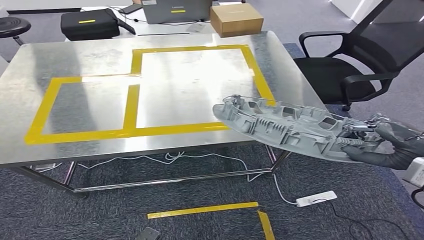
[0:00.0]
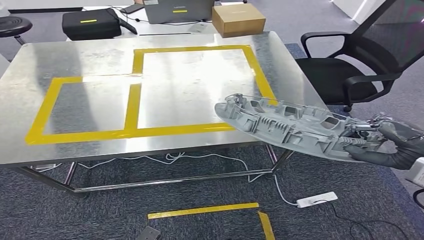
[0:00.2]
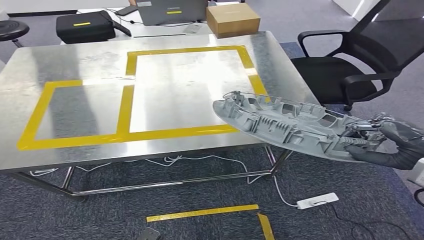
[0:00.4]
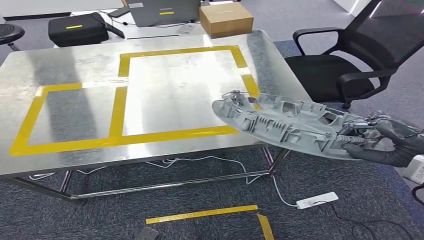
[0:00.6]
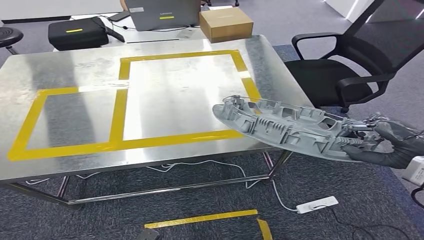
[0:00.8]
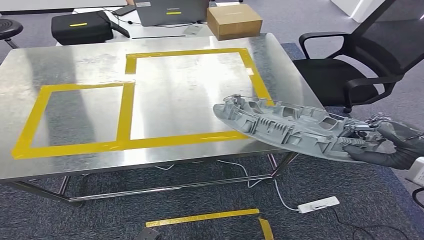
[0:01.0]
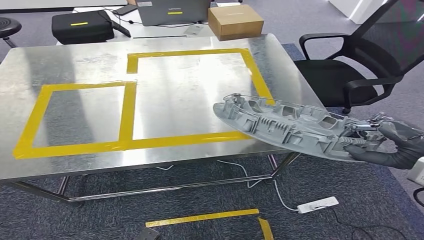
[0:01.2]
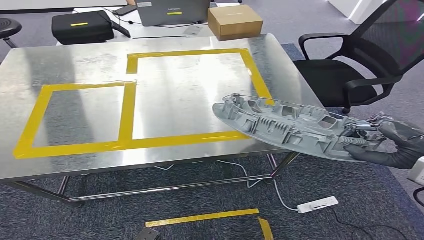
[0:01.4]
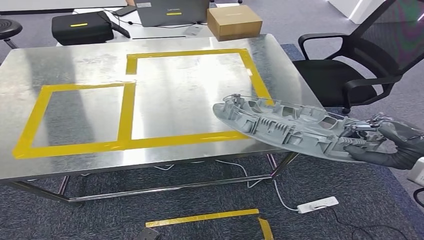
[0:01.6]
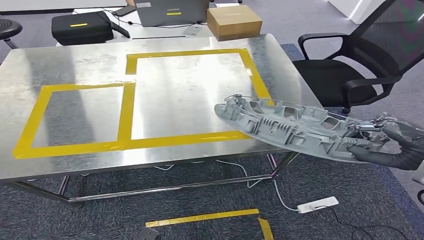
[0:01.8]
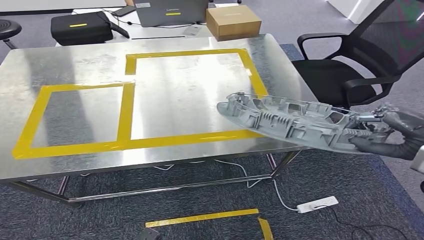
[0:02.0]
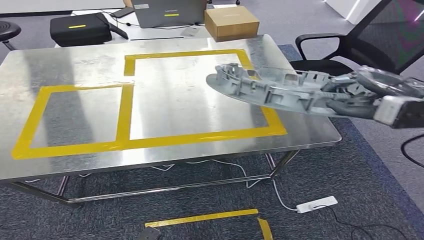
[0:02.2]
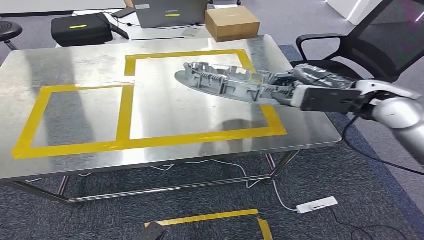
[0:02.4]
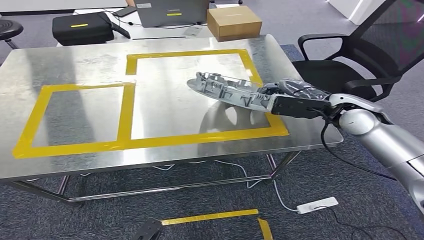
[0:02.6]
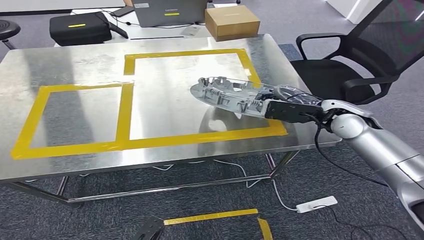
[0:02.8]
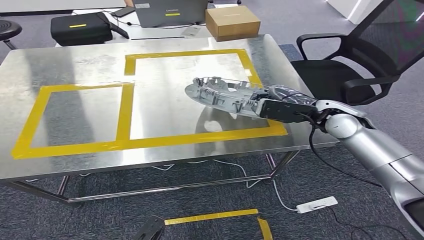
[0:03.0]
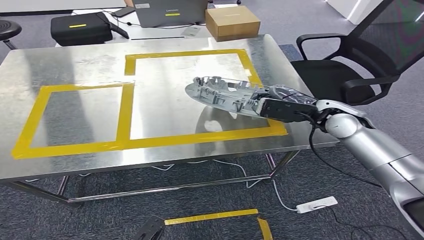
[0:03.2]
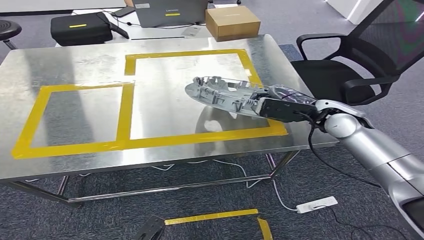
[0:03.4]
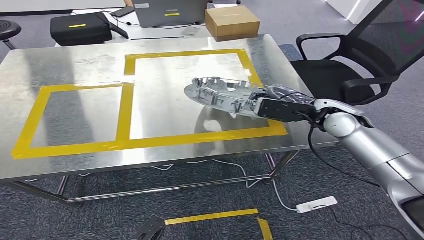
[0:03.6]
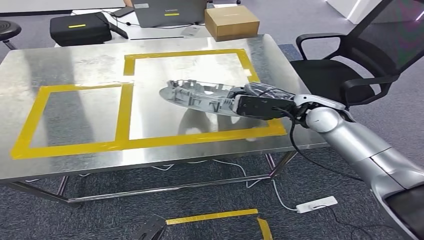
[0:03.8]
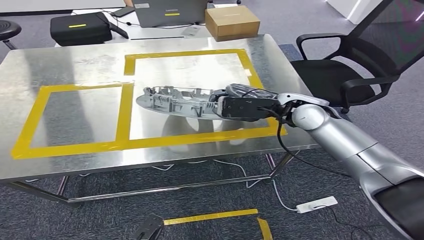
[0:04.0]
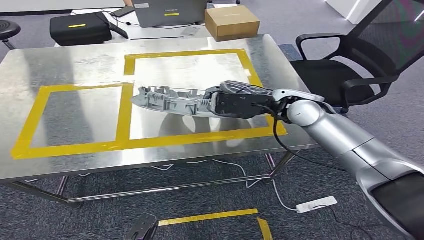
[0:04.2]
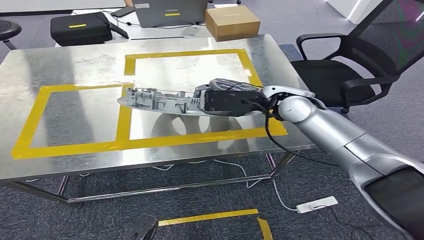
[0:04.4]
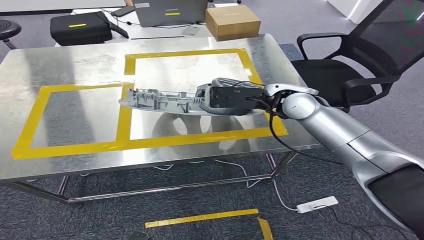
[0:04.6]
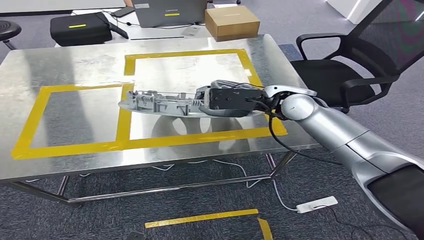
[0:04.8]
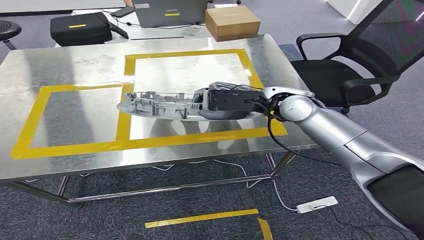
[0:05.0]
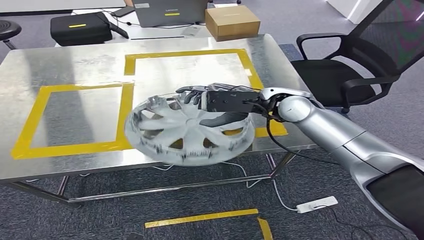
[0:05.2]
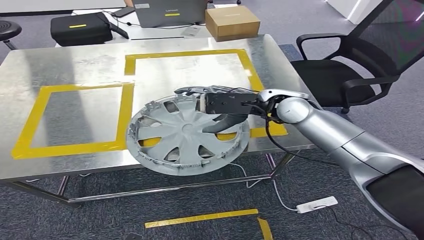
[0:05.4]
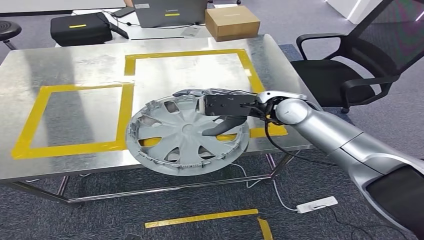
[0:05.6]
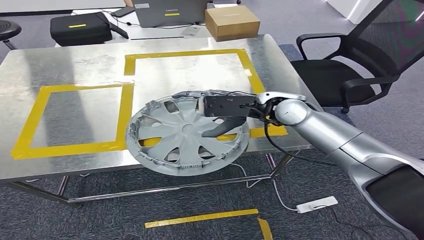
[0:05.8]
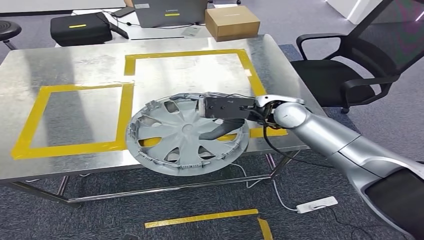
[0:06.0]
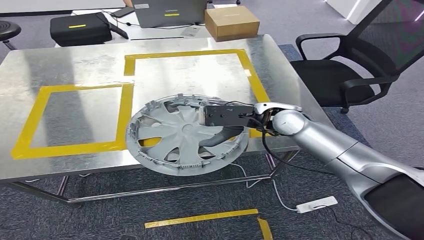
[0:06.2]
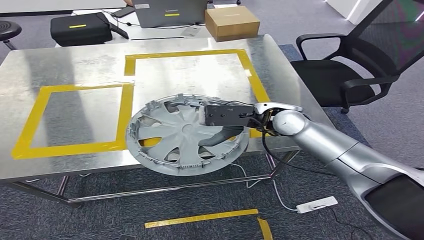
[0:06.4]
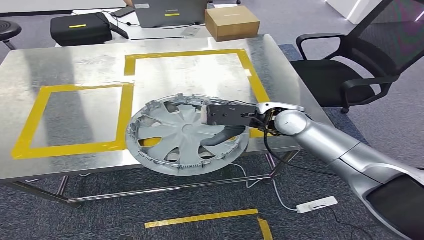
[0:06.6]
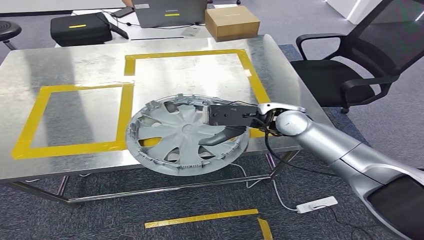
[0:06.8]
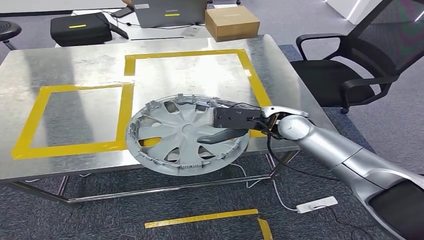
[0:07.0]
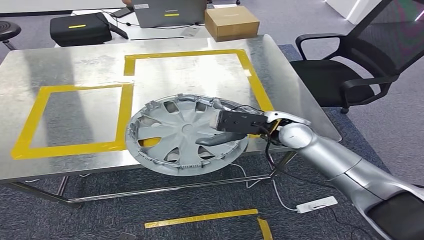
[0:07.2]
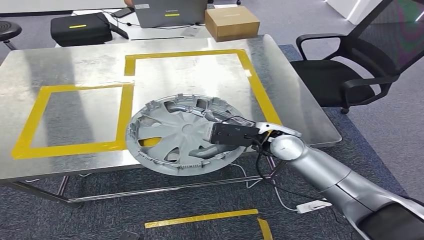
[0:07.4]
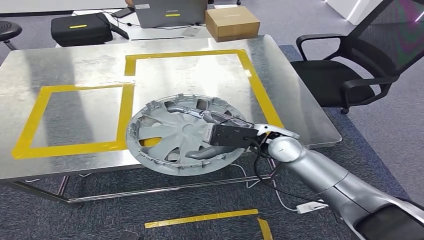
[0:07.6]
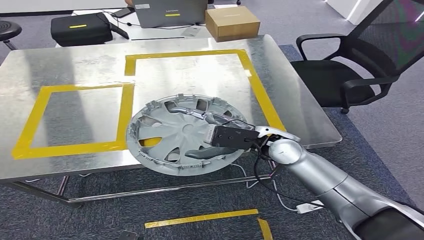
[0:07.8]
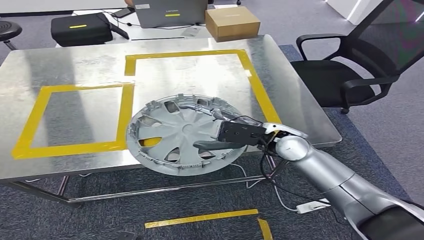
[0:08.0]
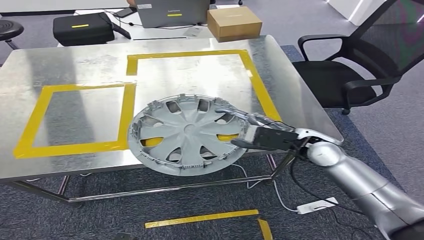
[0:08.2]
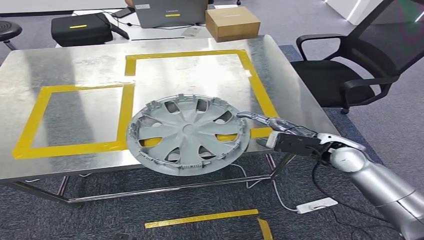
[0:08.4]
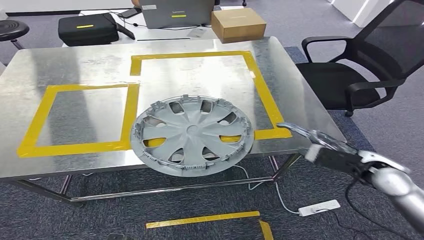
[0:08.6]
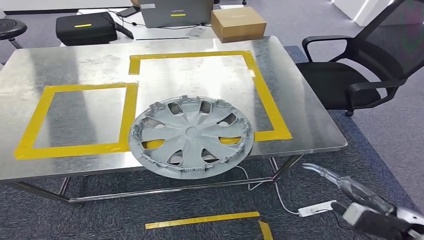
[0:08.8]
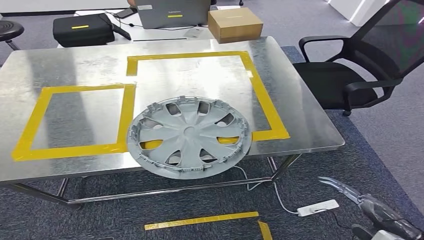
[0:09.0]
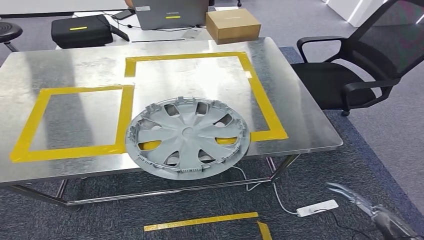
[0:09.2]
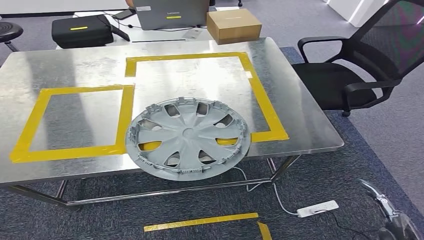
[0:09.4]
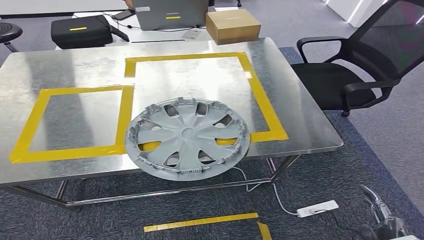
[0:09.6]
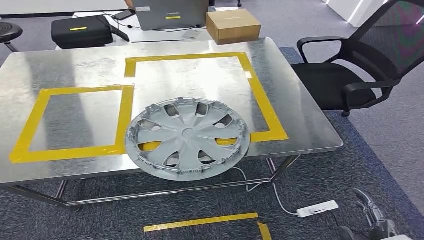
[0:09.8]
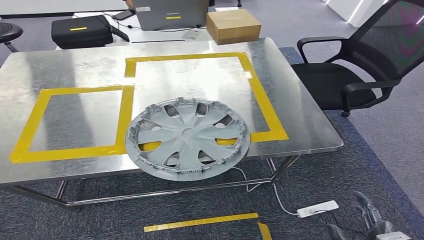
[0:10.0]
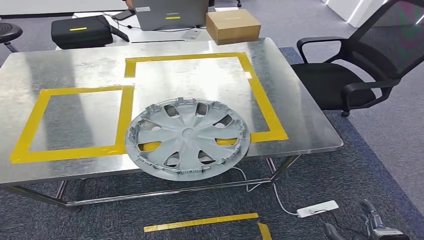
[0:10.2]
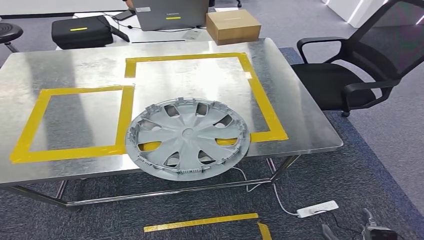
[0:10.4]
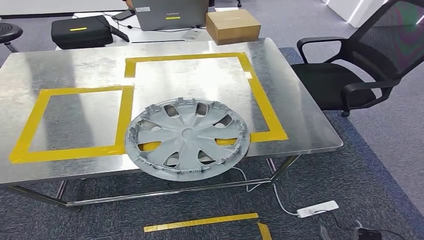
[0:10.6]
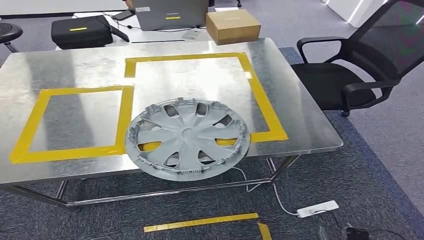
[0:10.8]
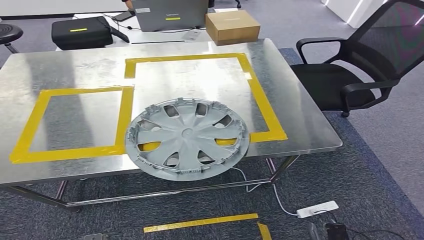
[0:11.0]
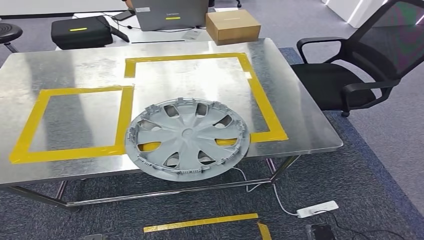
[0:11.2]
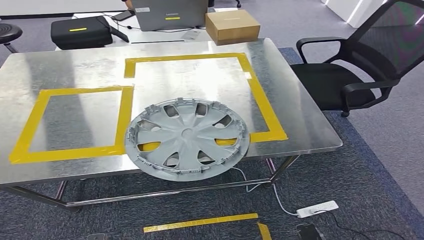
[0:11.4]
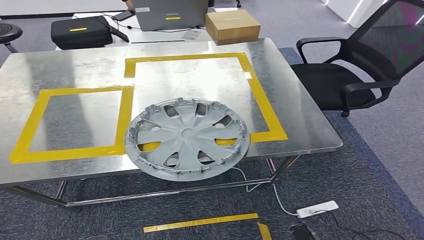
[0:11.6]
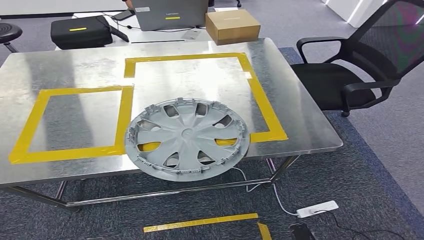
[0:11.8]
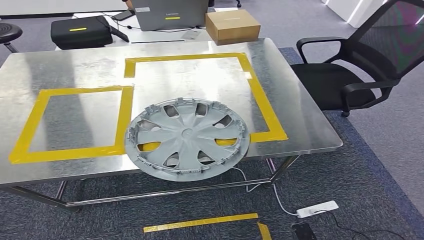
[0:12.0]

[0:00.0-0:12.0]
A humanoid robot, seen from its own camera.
Step, 0:00.0 to 0:09.4: Insert the small component into the corresponding slot on the workbench.
0:01.6 to 0:03.0: The right hand goes some 20 cm to the left and forward.
0:03.0 to 0:04.4: The right hand goes some 15 cm to the left and upward.
0:04.4 to 0:06.0: The left hand shifts some 5 cm backward.
0:06.0 to 0:07.6: The right hand goes roughly 5 cm downward.
0:07.6 to 0:09.0: The right hand travels to the right and backward by about 40 cm.
0:09.0 to 0:10.4: The right hand shifts about 20 cm downward, to the left and backward.
0:10.4 to 0:12.0: The right hand is displaced downward and to the left by roughly 15 cm.

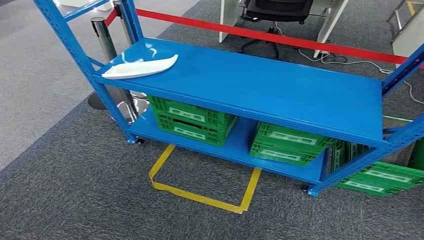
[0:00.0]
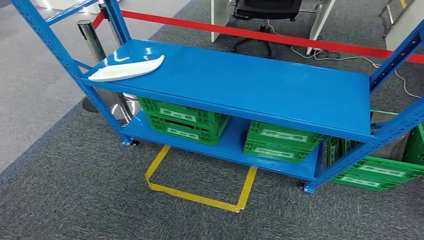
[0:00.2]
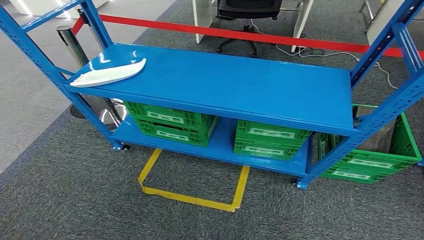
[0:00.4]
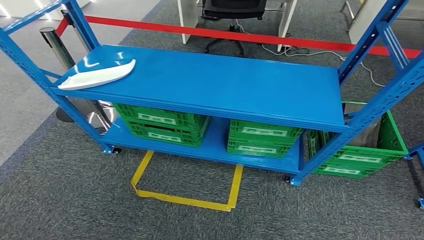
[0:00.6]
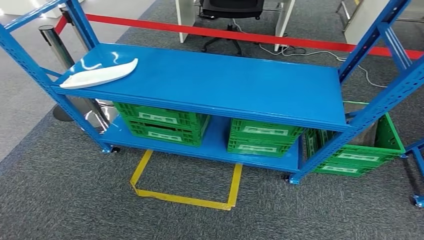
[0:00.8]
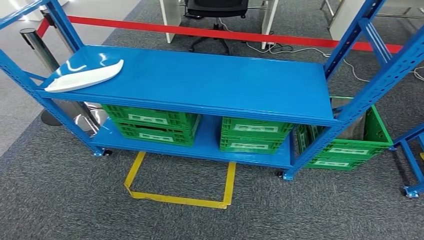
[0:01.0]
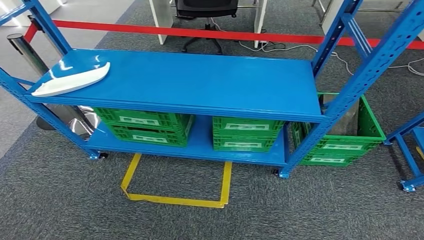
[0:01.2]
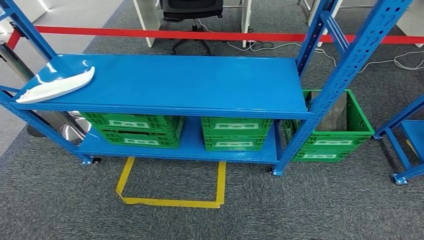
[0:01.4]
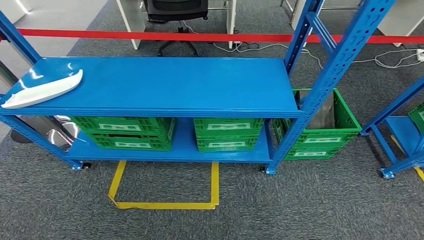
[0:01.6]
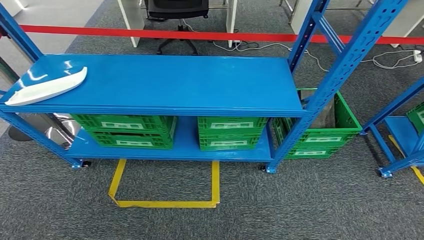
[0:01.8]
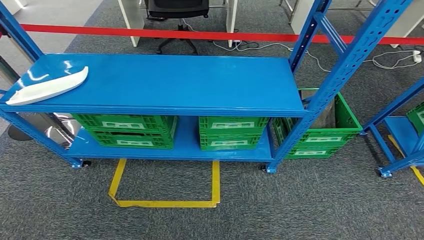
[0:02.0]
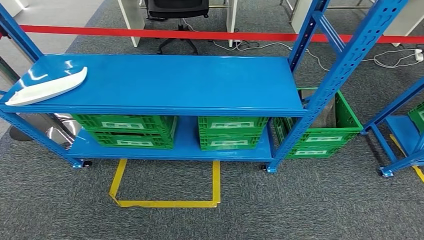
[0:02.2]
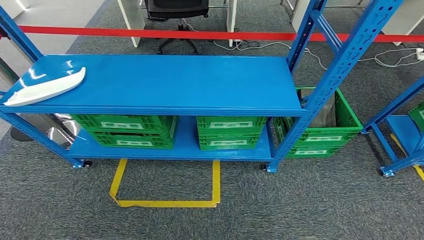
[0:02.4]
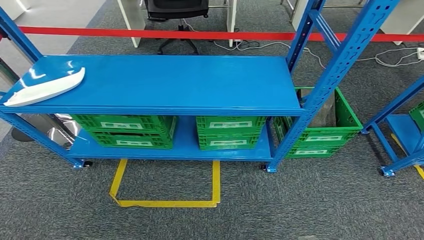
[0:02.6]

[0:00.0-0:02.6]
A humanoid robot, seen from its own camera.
Step, 0:00.0 to 0:02.6: Return to the initial position at the workbench.
